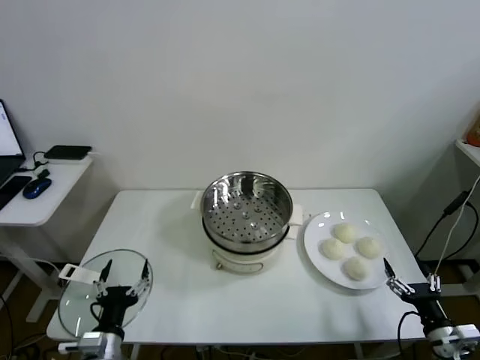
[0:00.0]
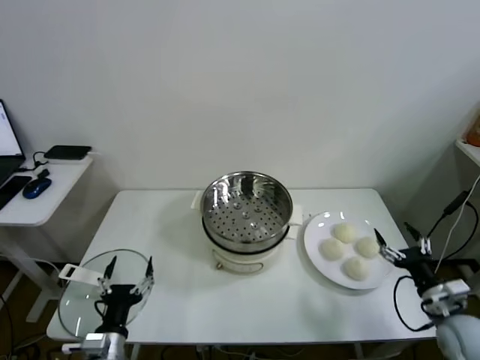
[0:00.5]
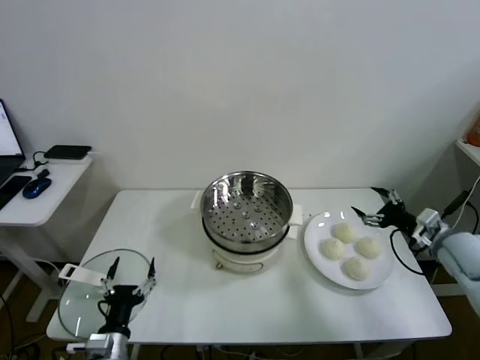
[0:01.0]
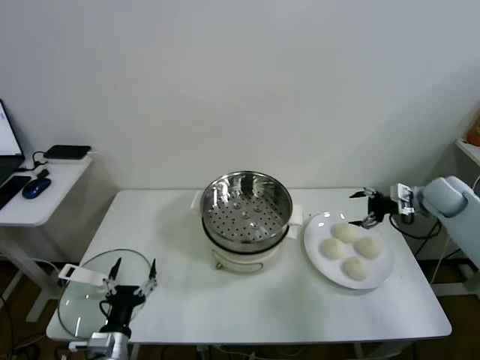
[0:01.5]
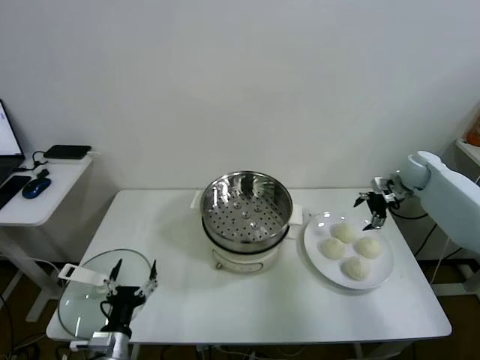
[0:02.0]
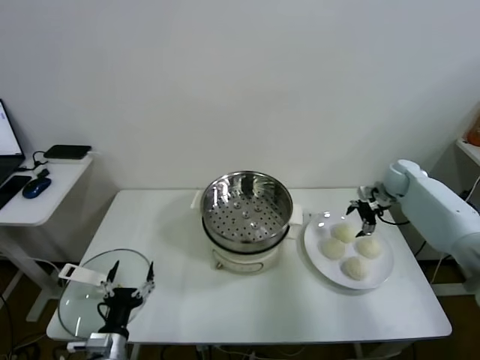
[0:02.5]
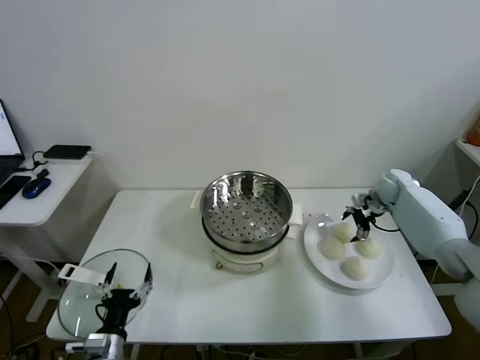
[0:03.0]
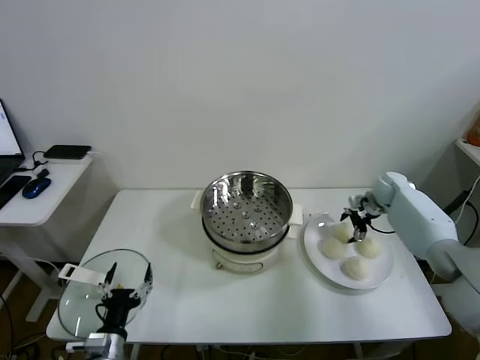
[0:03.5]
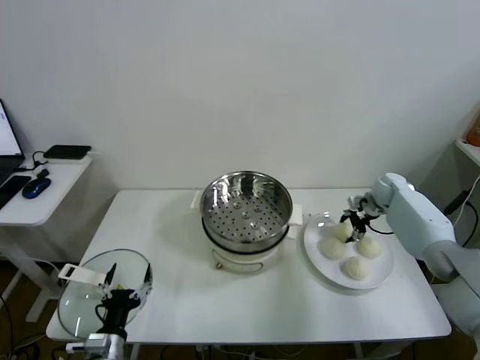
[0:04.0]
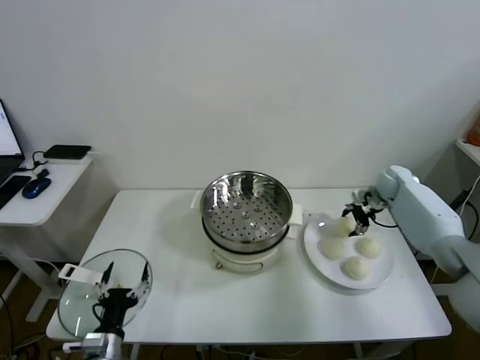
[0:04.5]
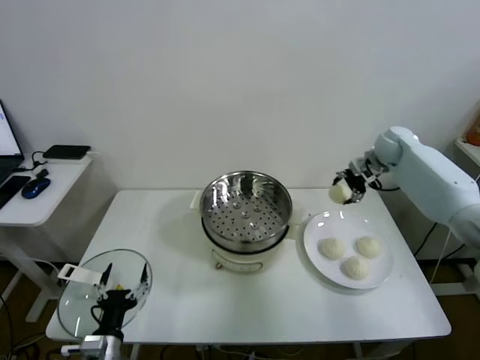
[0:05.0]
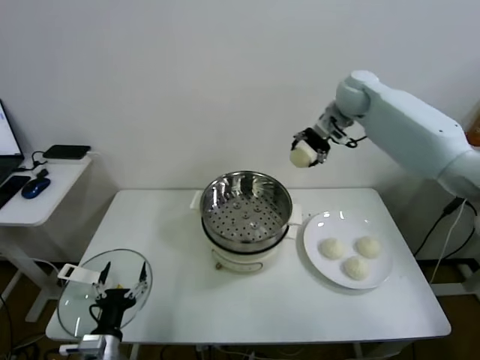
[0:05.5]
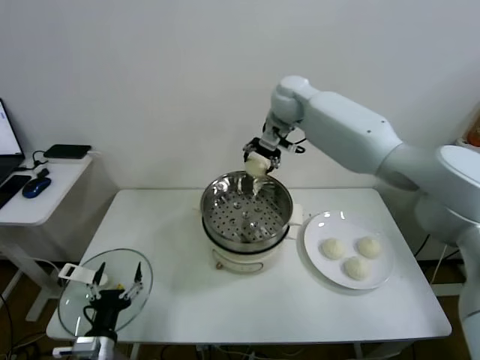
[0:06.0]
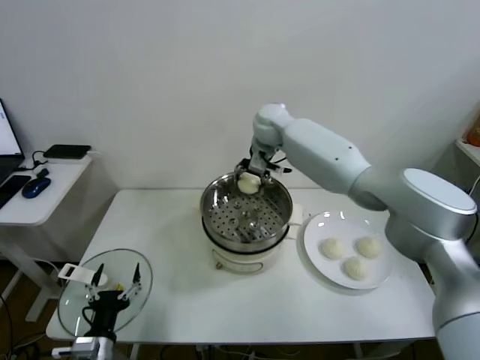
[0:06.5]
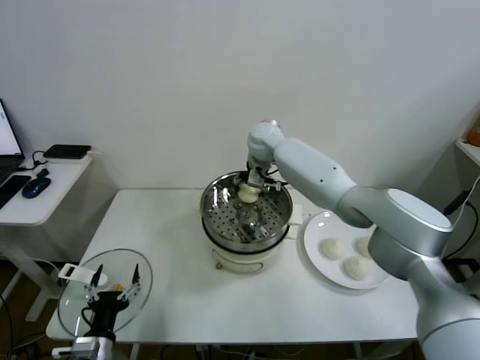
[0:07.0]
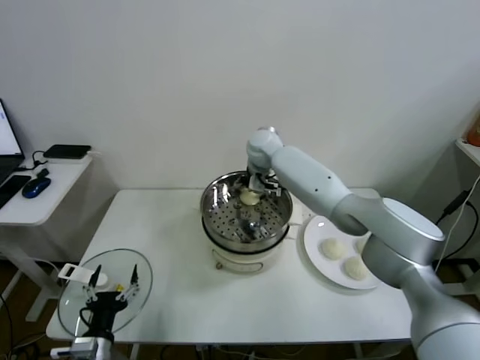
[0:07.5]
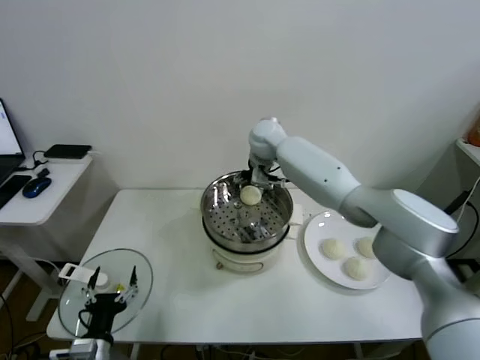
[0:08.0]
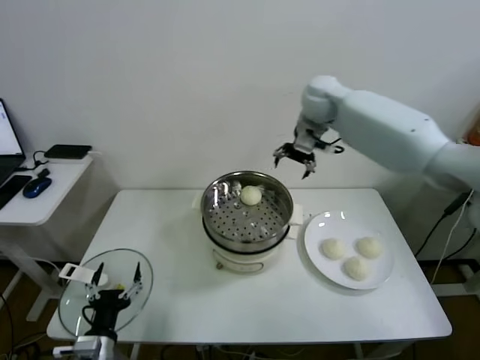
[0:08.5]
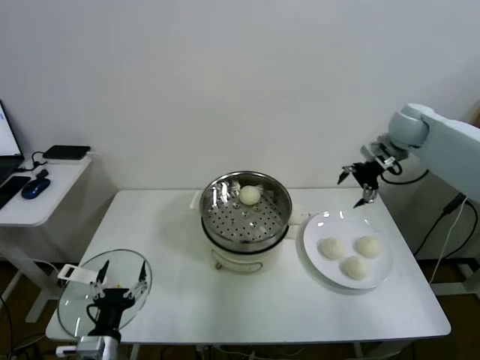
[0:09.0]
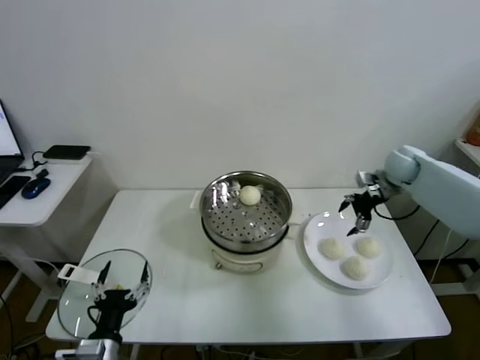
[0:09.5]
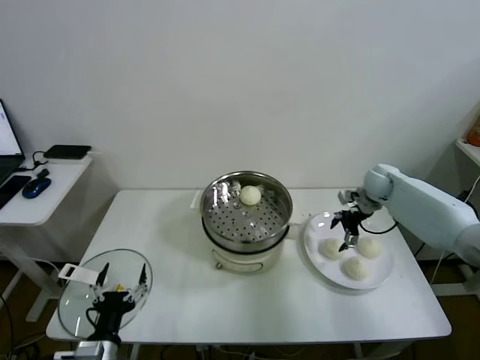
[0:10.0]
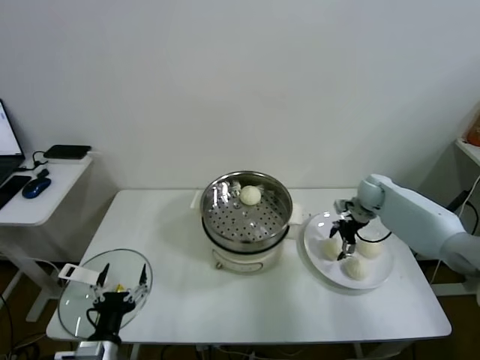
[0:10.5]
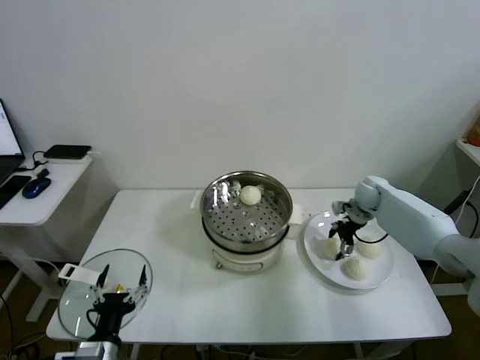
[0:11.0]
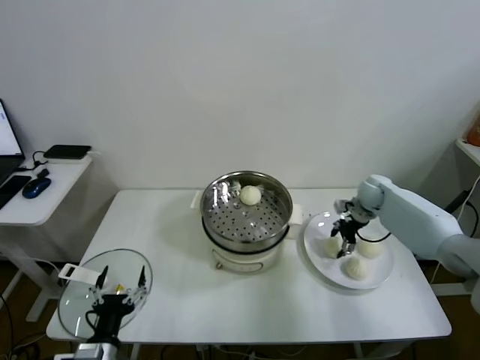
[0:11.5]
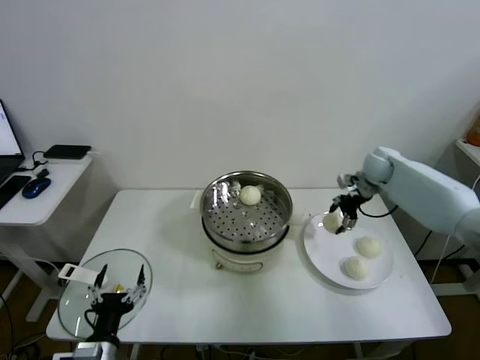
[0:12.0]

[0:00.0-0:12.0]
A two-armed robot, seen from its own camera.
Task of the whole recording: take steamed baozi put them in steamer.
Step, 0.0 to 4.0 s: Grasp the baozi in the plate with right gripper.
Step, 4.5 to 7.5 s: Place the baozi on the steamer with right gripper.
Step, 8.0 to 11.0 s: Grasp the baozi in the plate with right gripper.
2.0 to 4.0 s: The right gripper goes some 10 cm downward, and closes its fingers.
4.0 to 6.0 s: The right gripper shifts some 40 cm to the left and upward.
6.0 to 8.0 s: The right gripper shifts some 10 cm downward, and opens.
8.0 to 10.0 s: The right gripper heads to the right and downward, covering approximately 35 cm.
10.0 to 12.0 s: The right gripper moves upward, approximately 5 cm, and closes up.

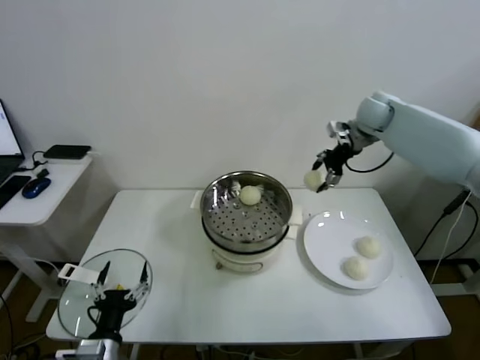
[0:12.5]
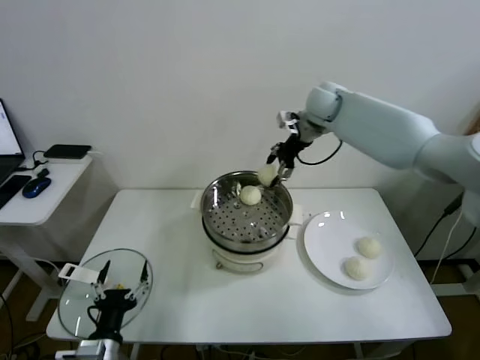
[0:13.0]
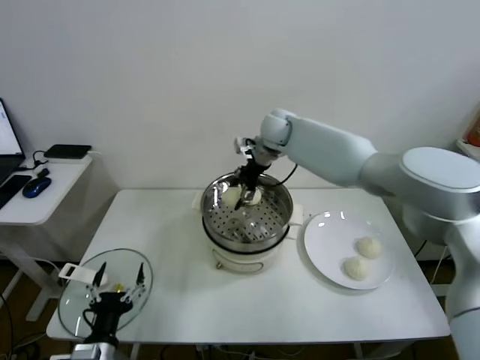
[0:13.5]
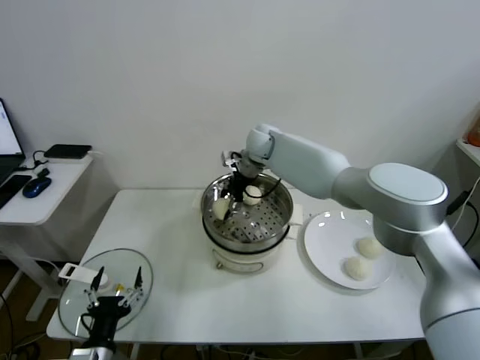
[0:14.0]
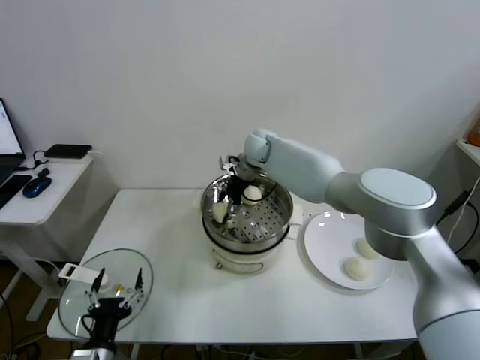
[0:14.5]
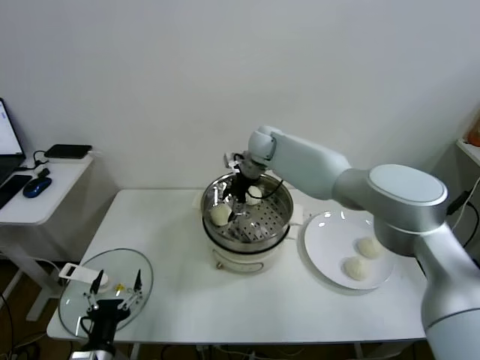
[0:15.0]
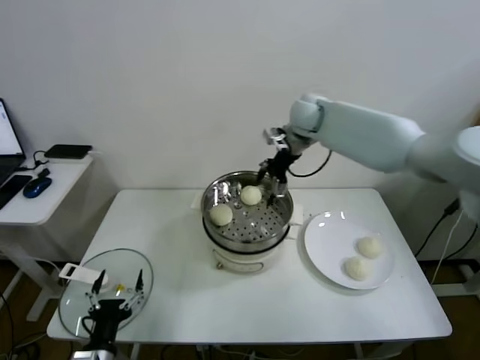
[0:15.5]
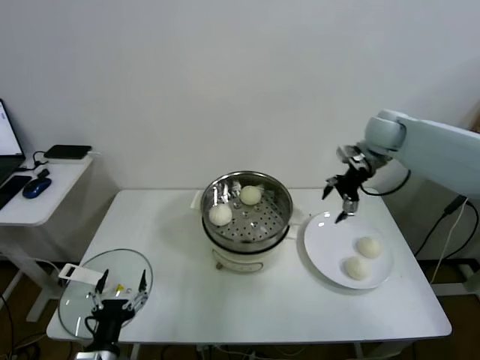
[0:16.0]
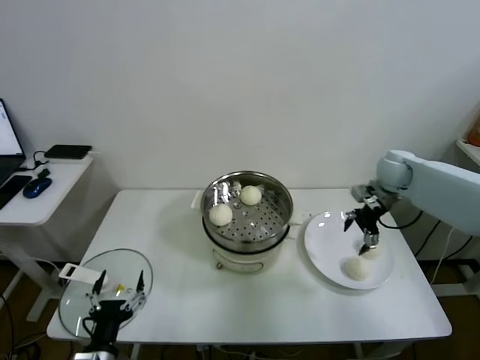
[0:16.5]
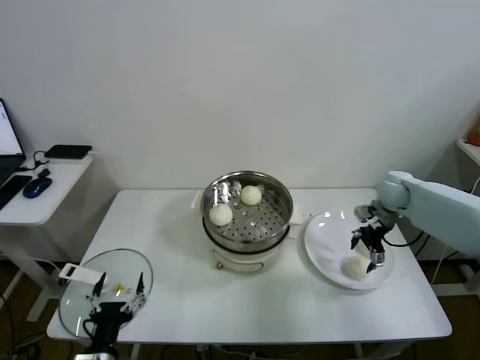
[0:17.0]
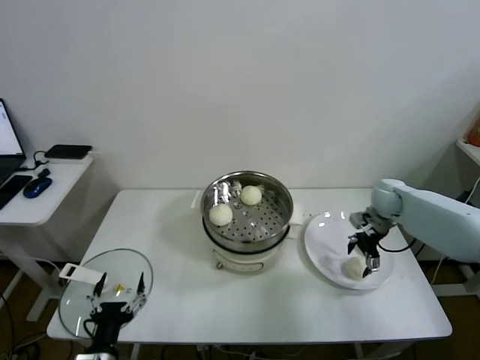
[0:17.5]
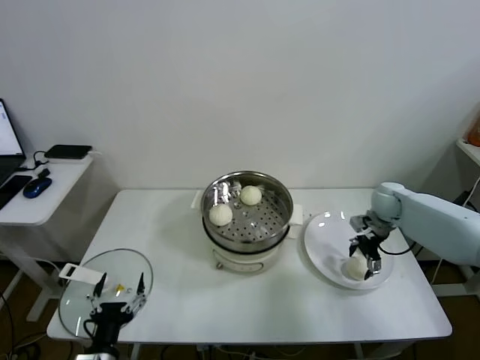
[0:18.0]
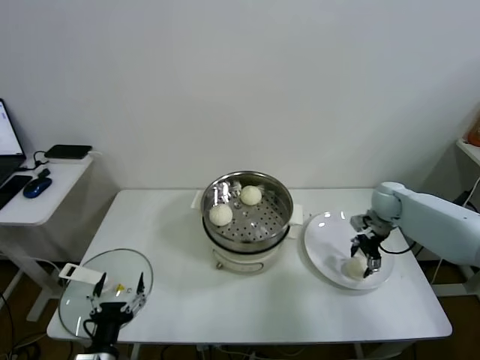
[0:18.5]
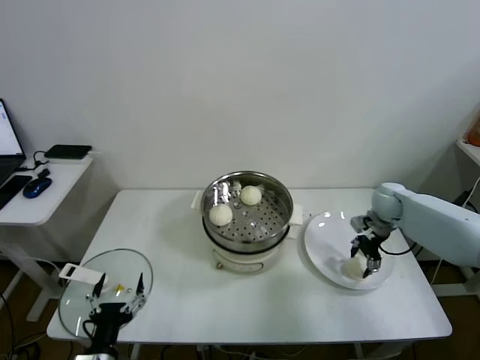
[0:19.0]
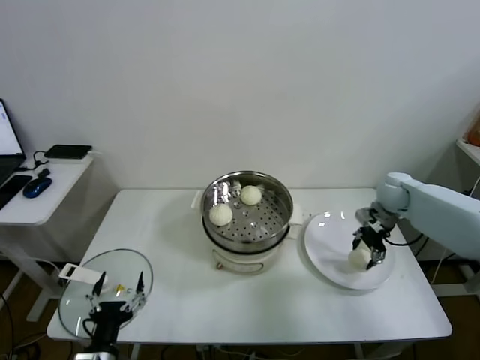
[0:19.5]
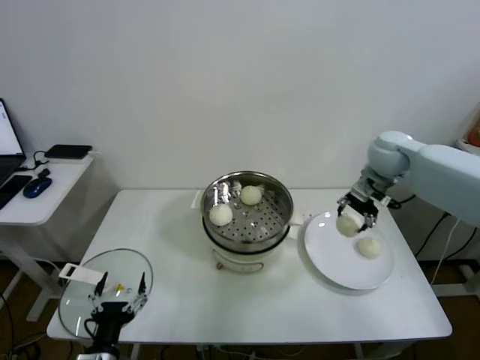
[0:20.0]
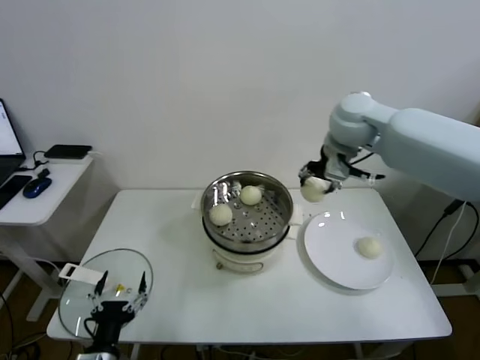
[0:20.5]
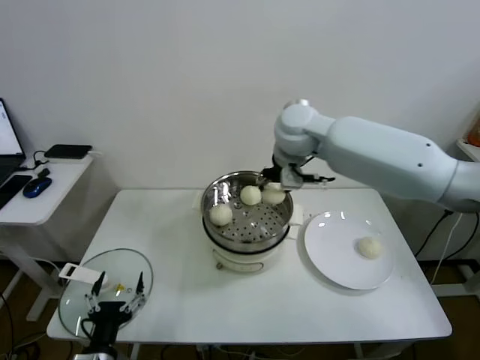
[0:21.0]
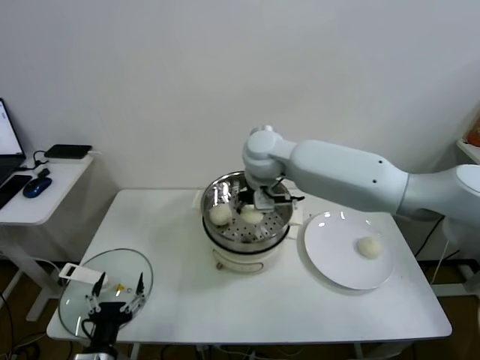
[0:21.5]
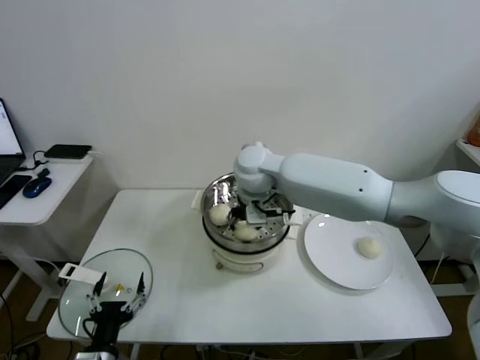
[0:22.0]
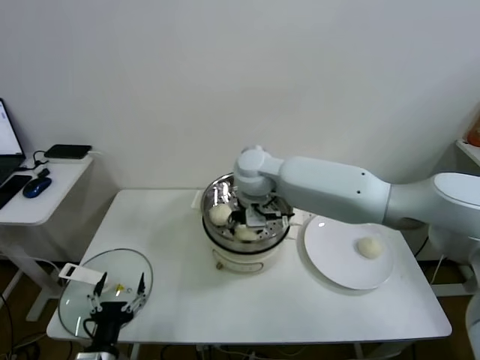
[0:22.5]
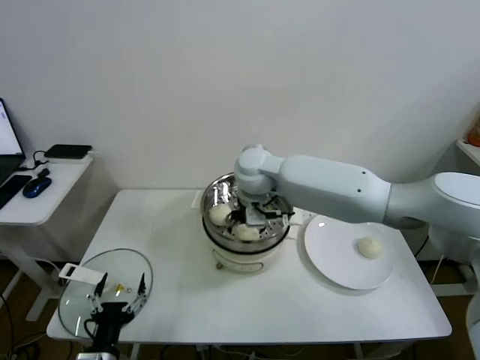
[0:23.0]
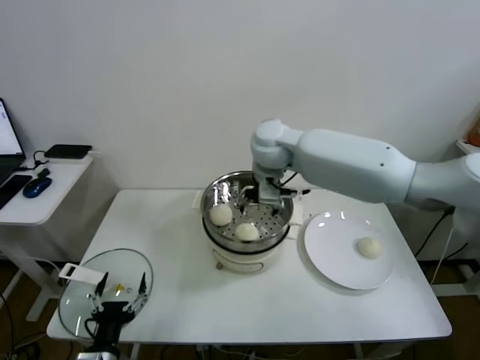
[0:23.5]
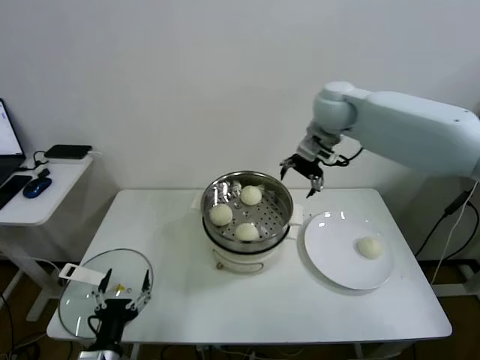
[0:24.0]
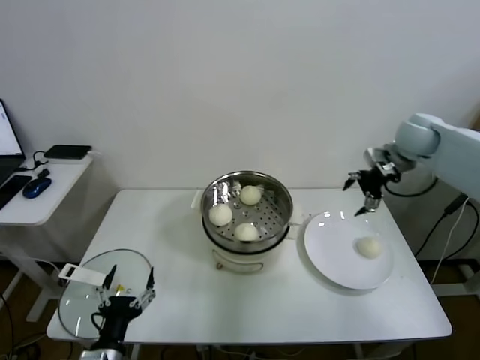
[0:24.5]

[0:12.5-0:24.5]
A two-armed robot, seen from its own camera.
Task of the whole recording: take steamed baozi put them in steamer.
Step, 12.5 to 14.5 s: Place the baozi on the steamer with right gripper.
Step, 15.0 to 18.5 s: Grasp the baozi in the plate with right gripper.
Step, 19.0 to 22.5 s: Place the baozi on the steamer with right gripper.
12.5 to 14.5 s: The right gripper shifts roughly 30 cm to the left and downward, and opens up.
14.5 to 16.5 s: The right gripper heads to the right, covering roughly 35 cm.
16.5 to 18.5 s: The right gripper is displaced downward by approximately 10 cm, and closes its fingers.
18.5 to 20.5 s: The right gripper moves upward and to the left, some 30 cm.
20.5 to 22.5 s: The right gripper is displaced to the left and downward by about 20 cm.
22.5 to 24.5 s: The right gripper moves to the right, some 35 cm, and opens up.

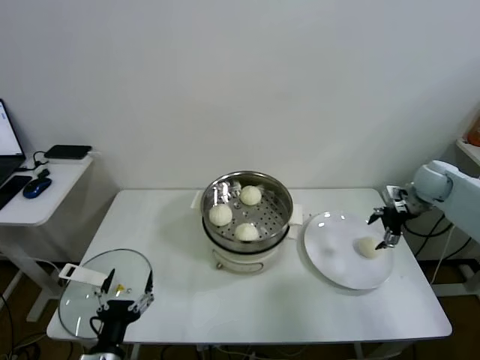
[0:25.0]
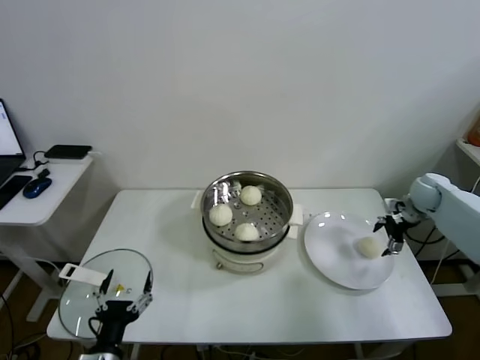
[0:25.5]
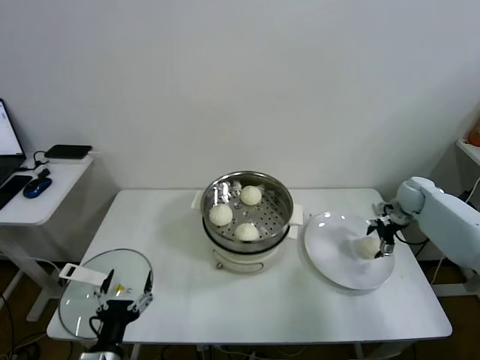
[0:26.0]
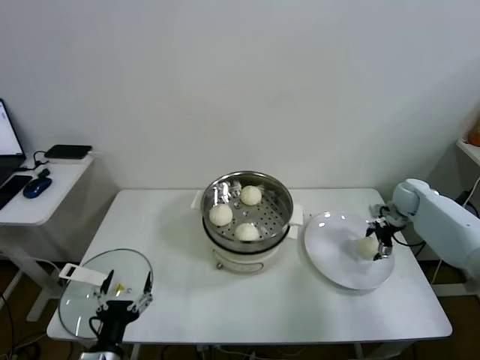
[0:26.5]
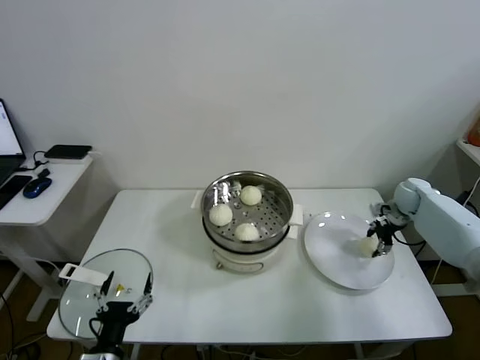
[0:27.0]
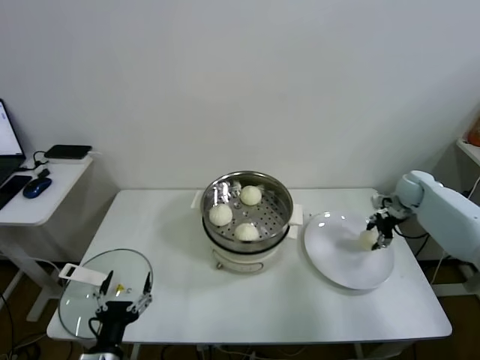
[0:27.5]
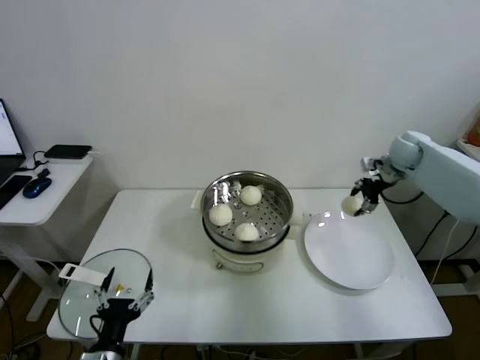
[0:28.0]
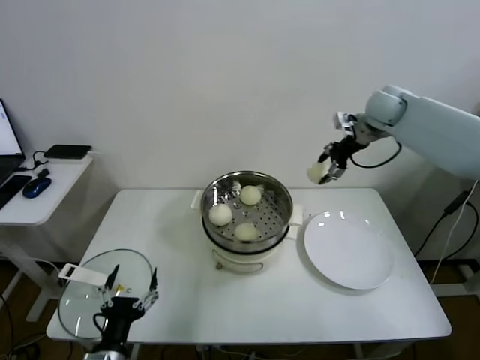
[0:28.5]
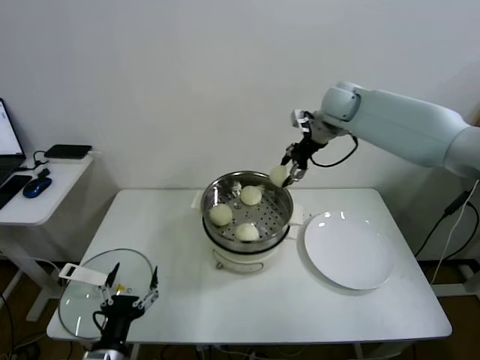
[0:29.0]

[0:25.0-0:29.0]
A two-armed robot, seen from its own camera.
Task of the whole recording: take steamed baozi put them in steamer.
Step, 25.0 to 27.0 s: Grasp the baozi in the plate with right gripper.
25.0 to 27.0 s: The right gripper heads downward, covering roughly 10 cm, and closes.
27.0 to 29.0 s: The right gripper travels upward and to the left by roughly 35 cm.
